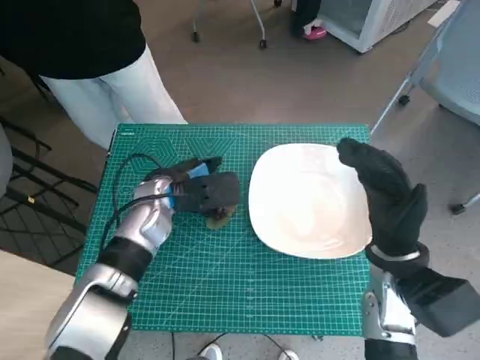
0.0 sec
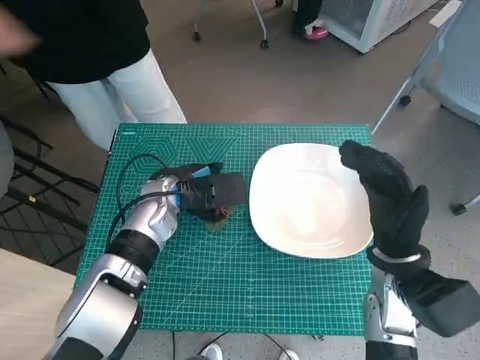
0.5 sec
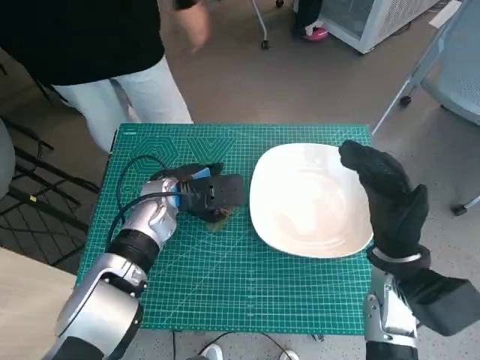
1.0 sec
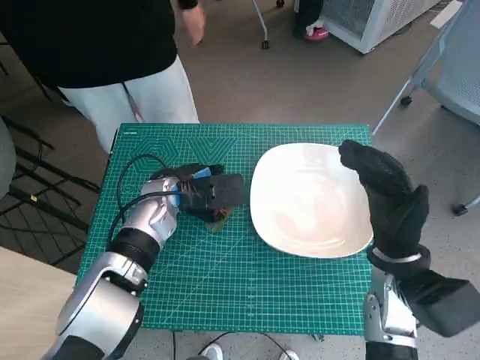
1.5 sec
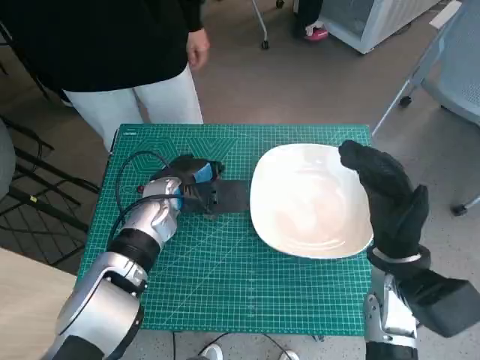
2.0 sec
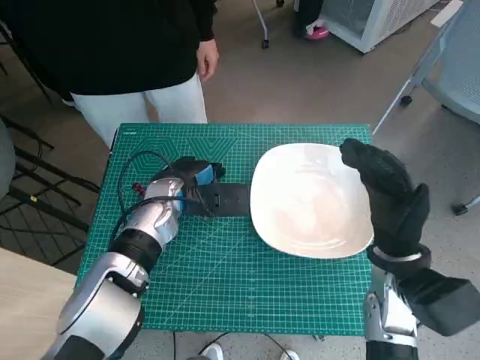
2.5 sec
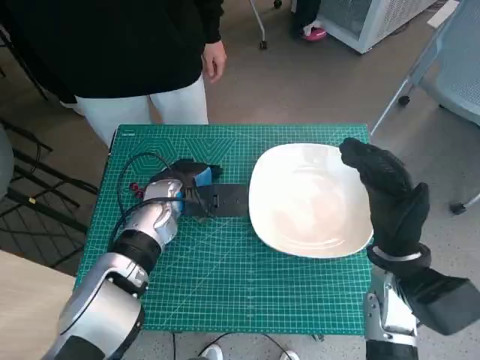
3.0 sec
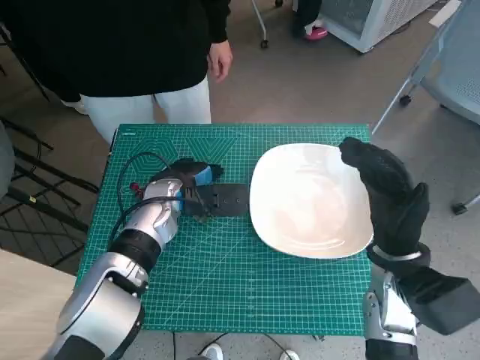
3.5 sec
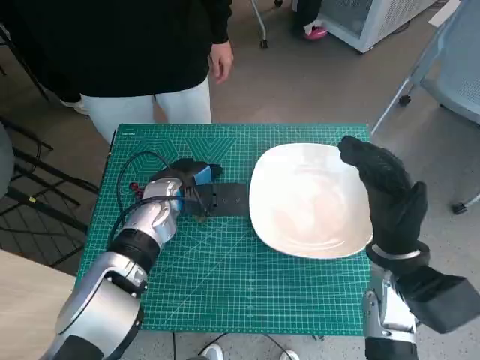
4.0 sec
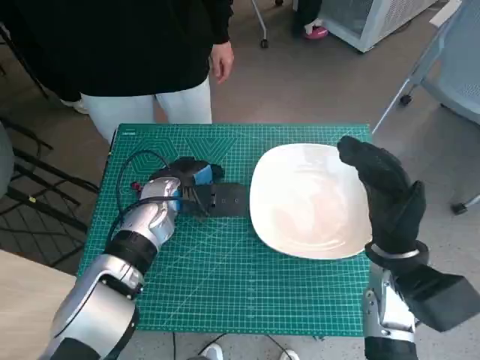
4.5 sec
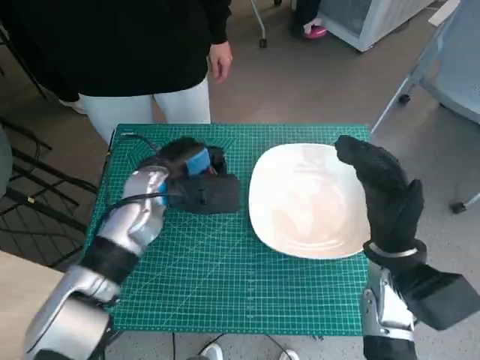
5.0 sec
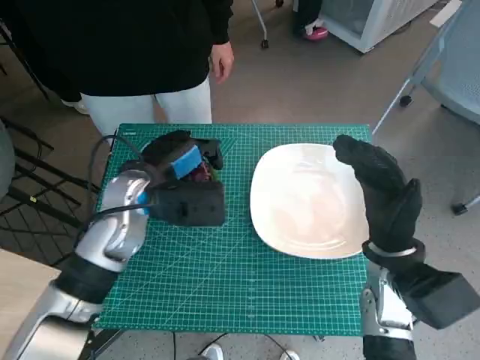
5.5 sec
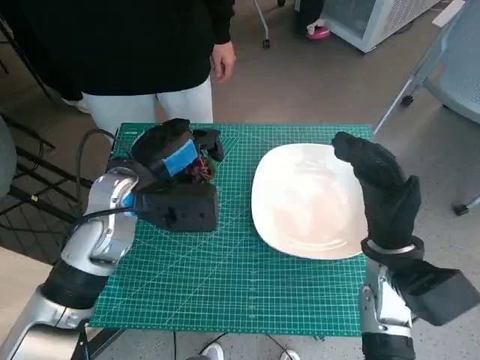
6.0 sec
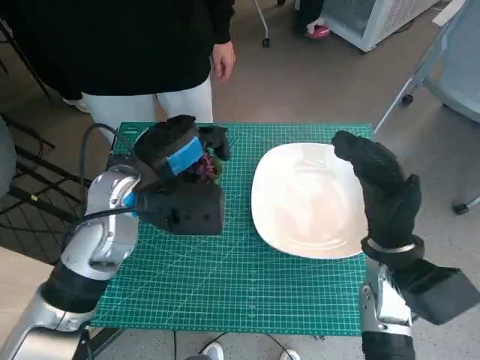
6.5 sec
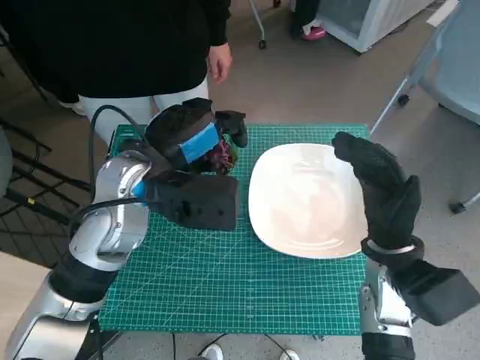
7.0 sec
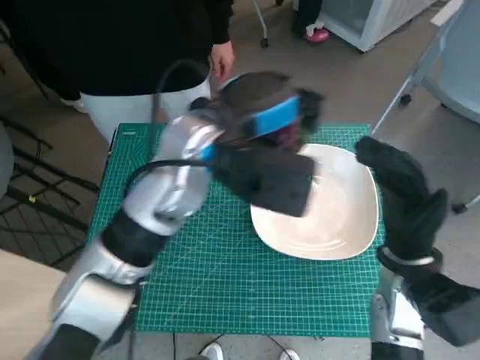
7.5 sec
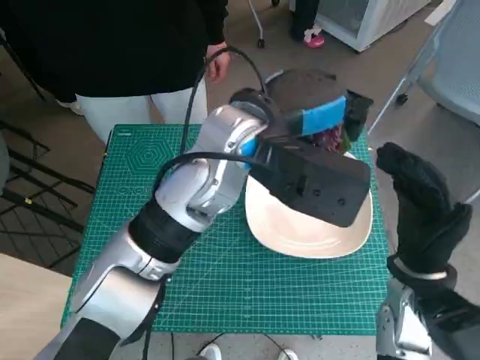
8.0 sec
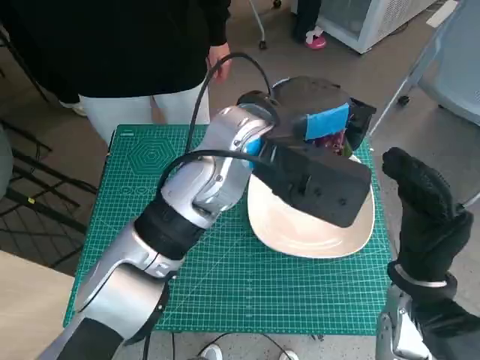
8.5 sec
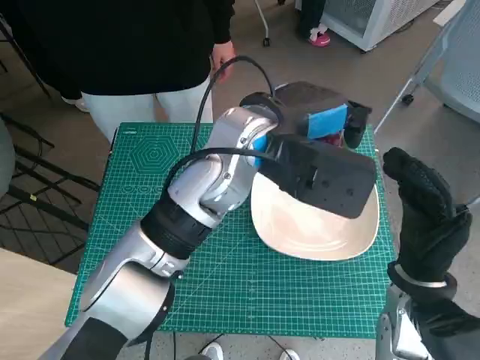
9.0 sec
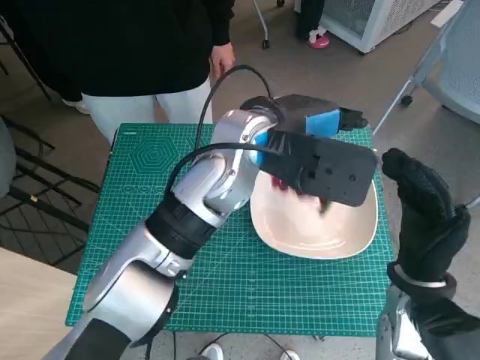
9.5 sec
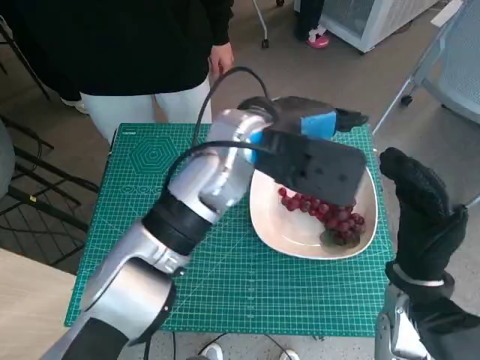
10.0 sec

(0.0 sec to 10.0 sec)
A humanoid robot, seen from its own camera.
Task of the whole recording: Pick up the grapes and put them on the plate.
Step, 0.0 sec - 2.5 sec: Grasp the grapes with left hand.
Step, 3.0 sec - 9.5 sec: Place the grapes in the plate with left hand.
0.0 sec - 2.0 sec: The hands make only small movements.
2.0 sec - 4.0 sec: Neither hand changes place.
4.0 sec - 6.0 sec: The left hand heads upward, covering about 10 cm.
6.0 sec - 8.0 sec: The left hand moves to the right and upward, about 15 cm.

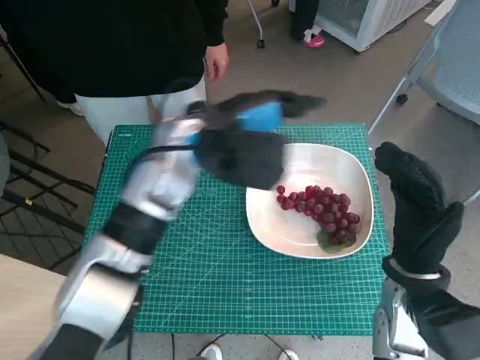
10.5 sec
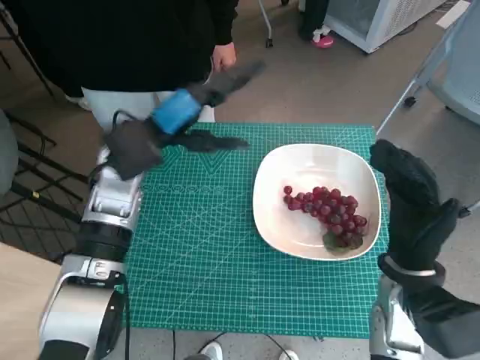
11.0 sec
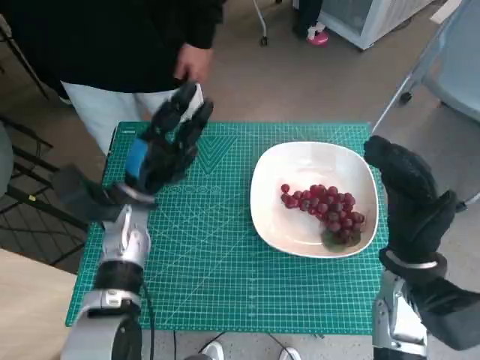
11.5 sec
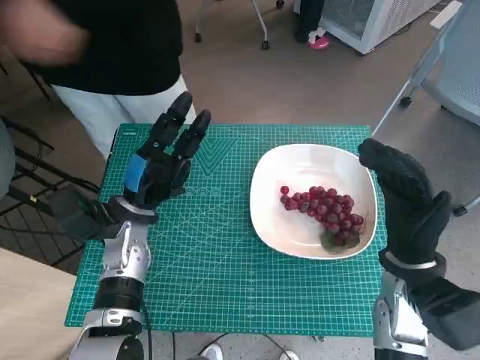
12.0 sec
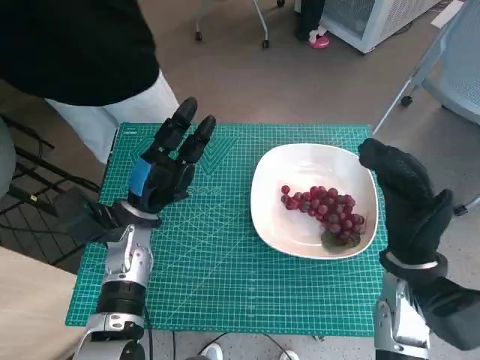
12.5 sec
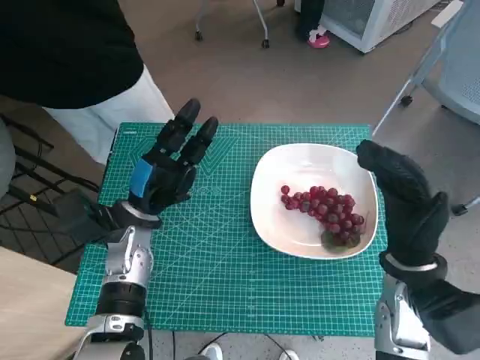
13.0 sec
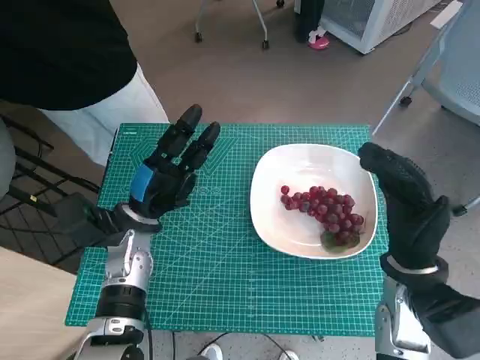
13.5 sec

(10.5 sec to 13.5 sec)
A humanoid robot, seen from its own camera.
Task of the whole recording: Pick up the grapes and put them on the plate.
10.5 sec - 12.0 sec: The left hand moves downward and to the left, about 20 cm.
12.0 sec - 13.5 sec: Both hands stay put.
